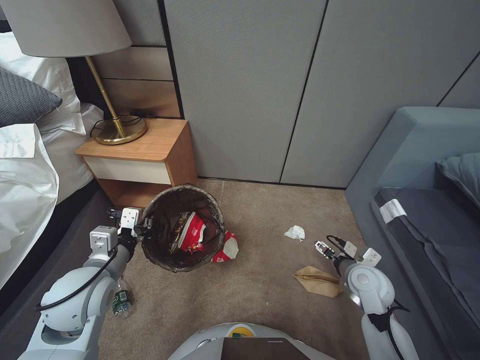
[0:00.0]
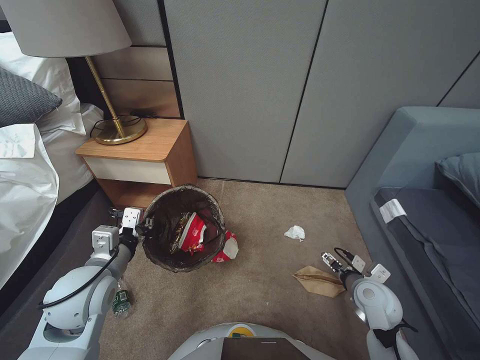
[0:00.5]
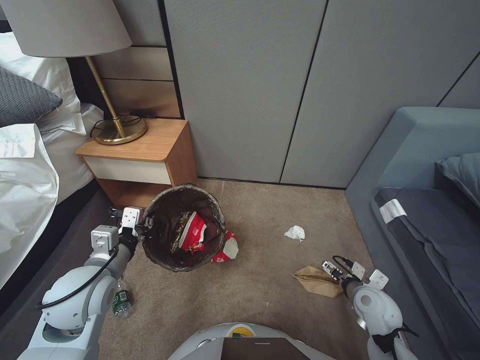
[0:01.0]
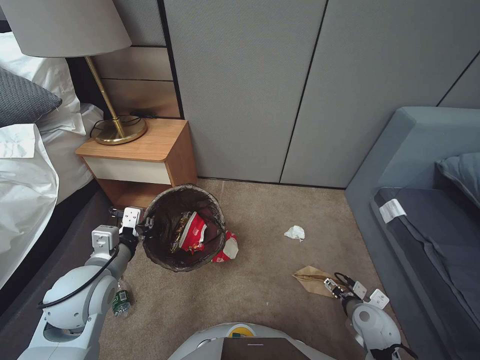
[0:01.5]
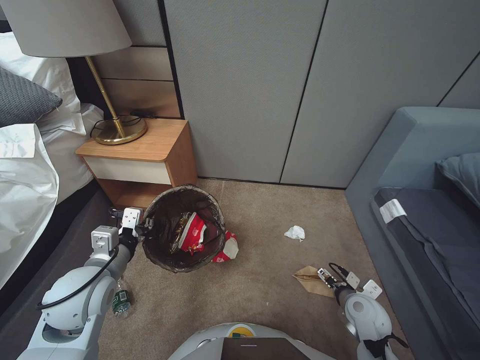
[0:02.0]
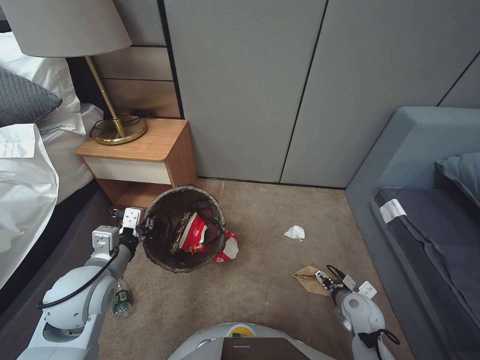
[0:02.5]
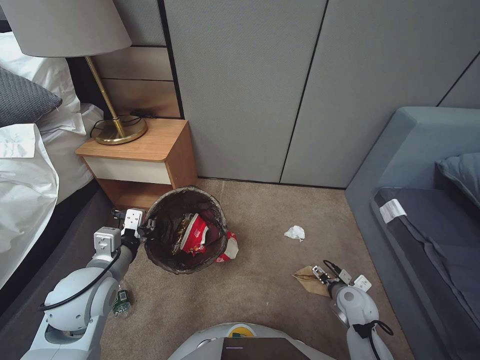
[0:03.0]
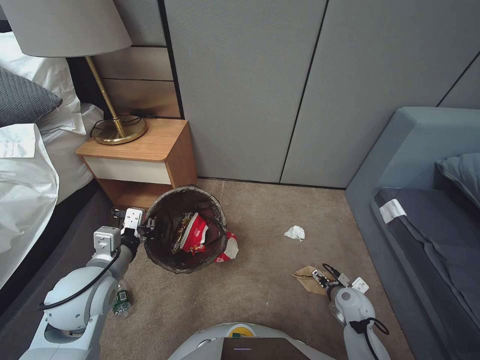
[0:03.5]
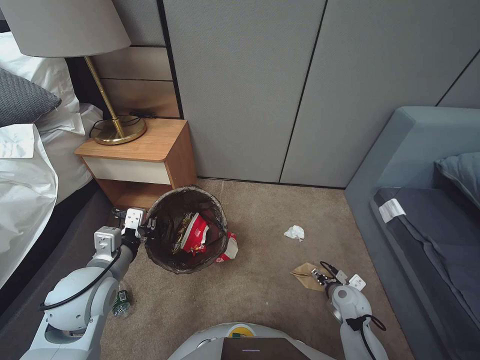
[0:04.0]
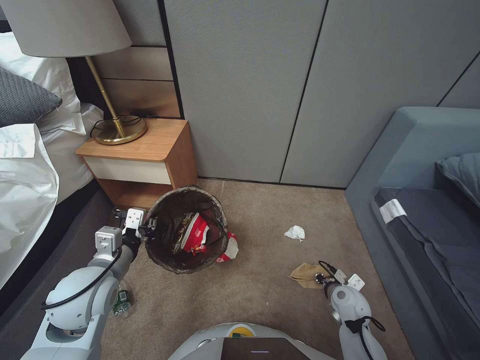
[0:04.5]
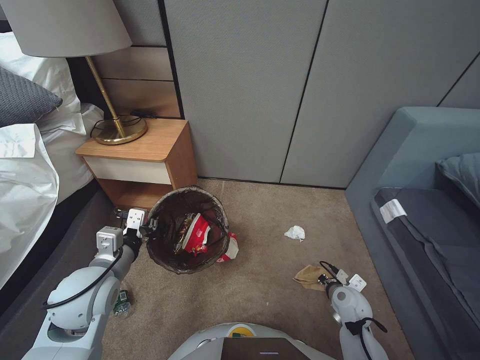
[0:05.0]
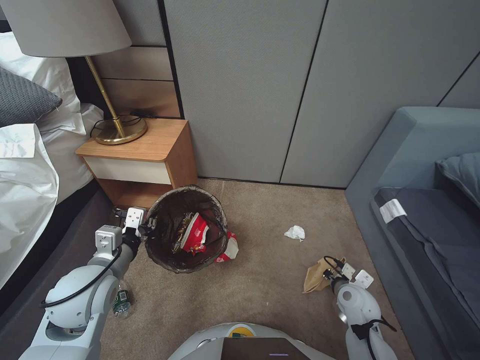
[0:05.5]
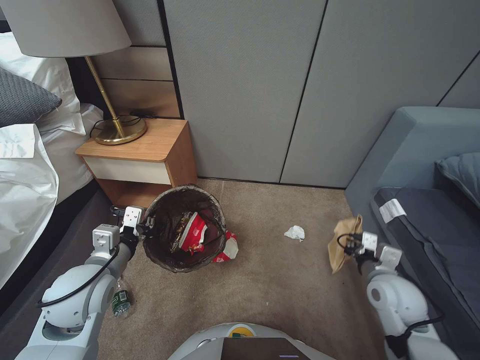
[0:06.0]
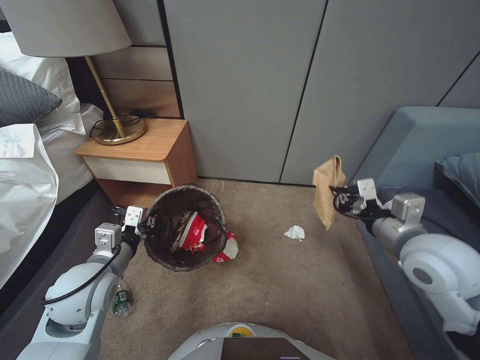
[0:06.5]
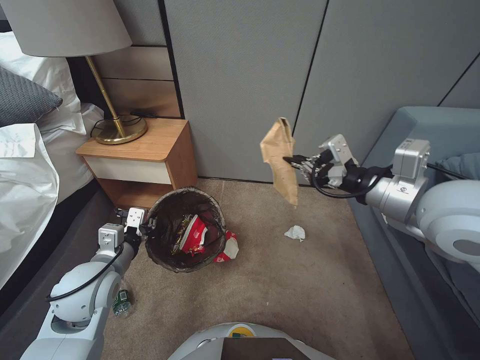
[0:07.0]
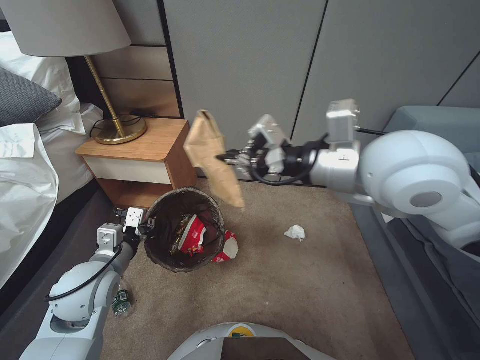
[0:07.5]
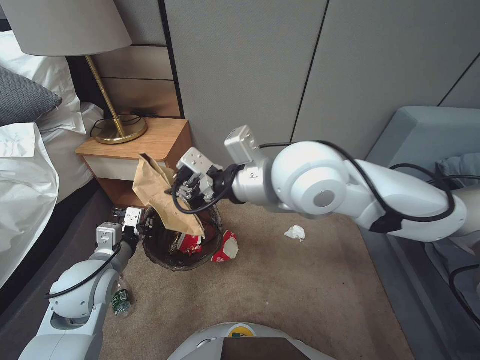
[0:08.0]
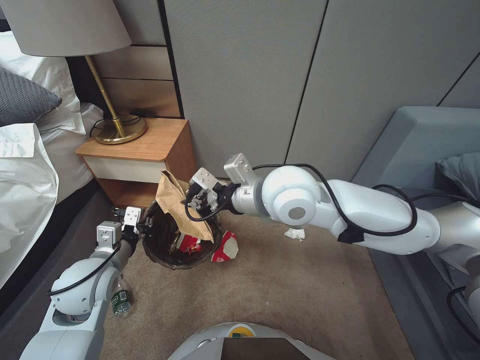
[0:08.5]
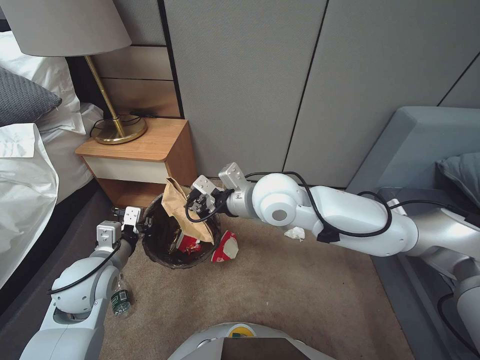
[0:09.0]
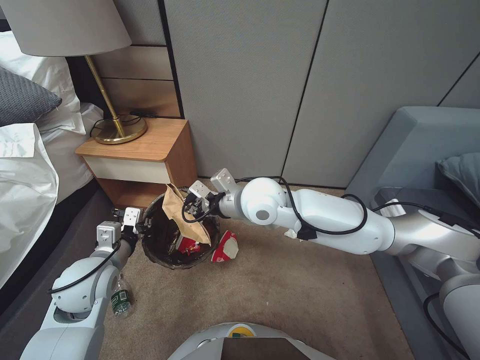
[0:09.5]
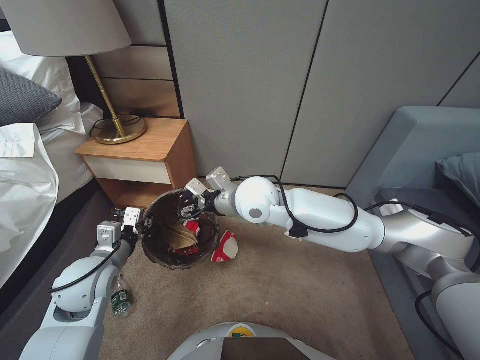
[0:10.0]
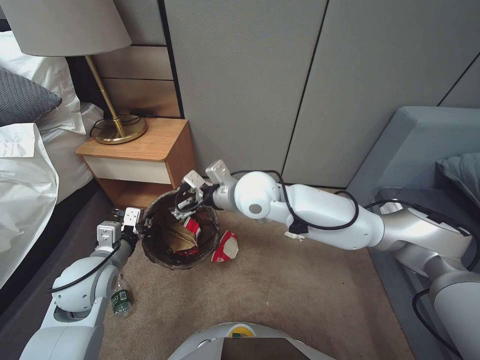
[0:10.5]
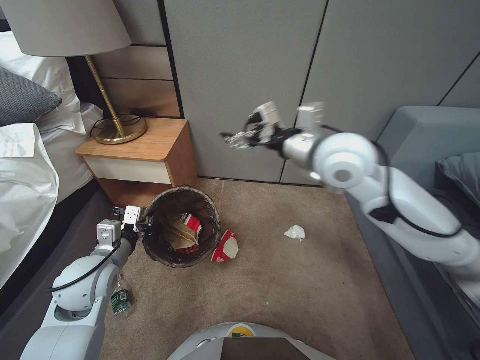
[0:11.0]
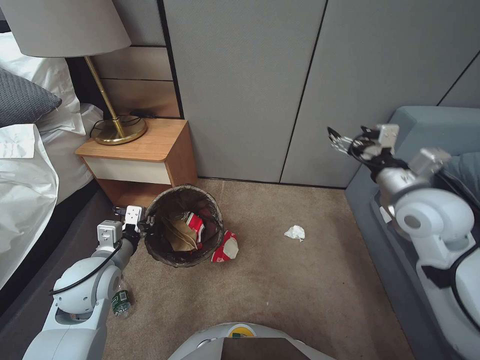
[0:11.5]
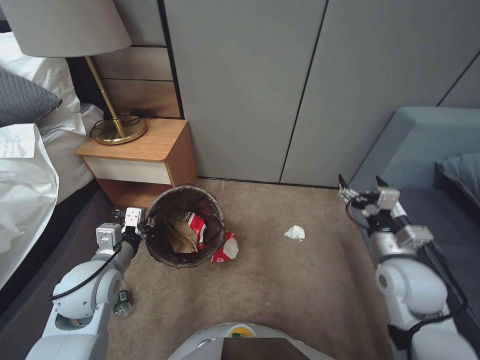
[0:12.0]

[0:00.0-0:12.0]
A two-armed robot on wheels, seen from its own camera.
Task of the whole recording: Pick up the trash bin, then pick up the garbage from the floor and place it into the trash bin.
0:00.0 to 0:02.0: The right gripper shifts approximately 10 cm downward and backward.
0:02.0 to 0:04.0: The right gripper moves downward, approximately 5 cm.
0:04.0 to 0:06.0: The right gripper is displaced upward by approximately 15 cm, and closes its fingers.
0:06.0 to 0:08.0: The right gripper travels upward and to the left by some 40 cm.
0:08.0 to 0:10.0: The right gripper is displaced downward and forward by some 15 cm, and opens its fingers.
0:10.0 to 0:12.0: The right gripper heads to the right and backward, covering roughly 35 cm, and opens up.

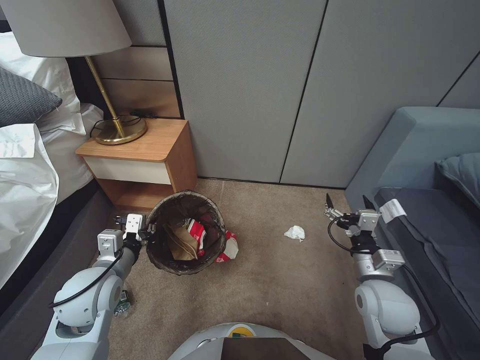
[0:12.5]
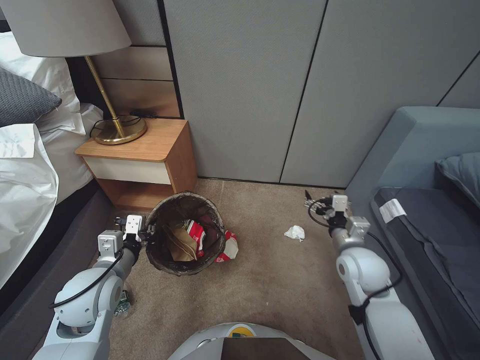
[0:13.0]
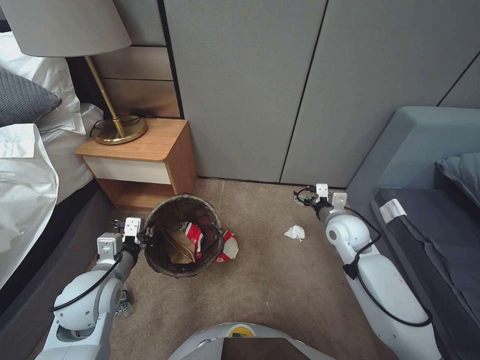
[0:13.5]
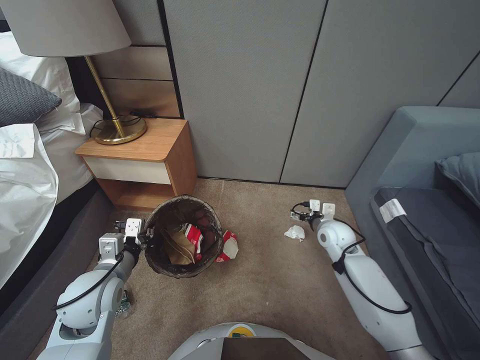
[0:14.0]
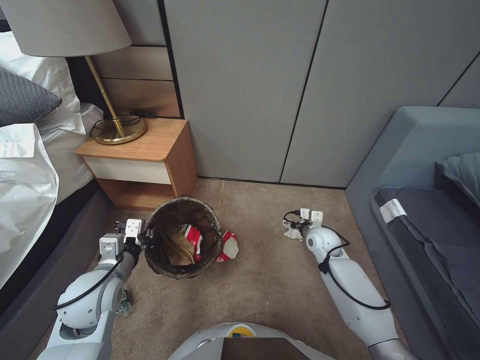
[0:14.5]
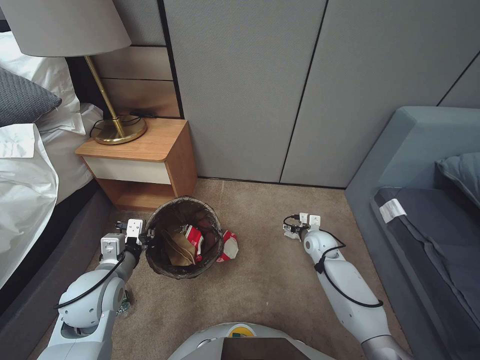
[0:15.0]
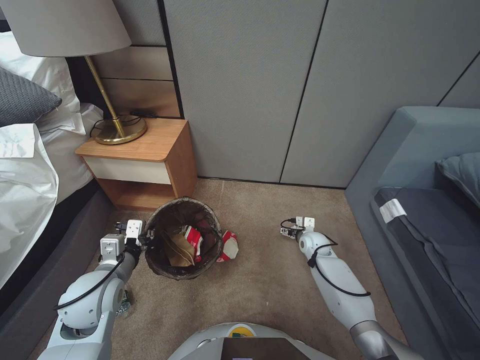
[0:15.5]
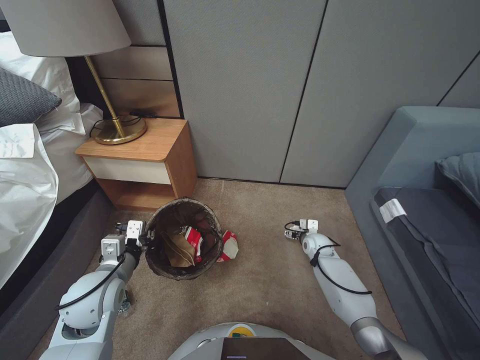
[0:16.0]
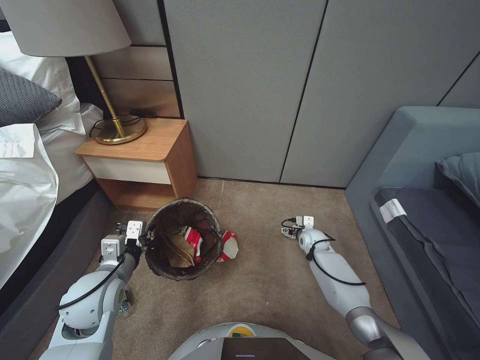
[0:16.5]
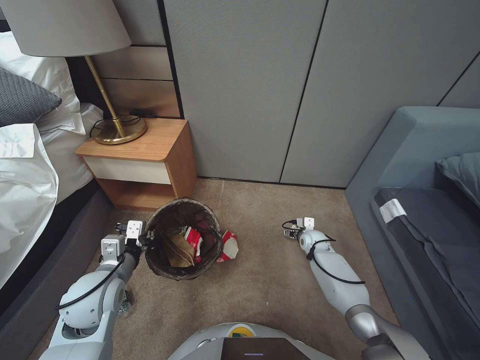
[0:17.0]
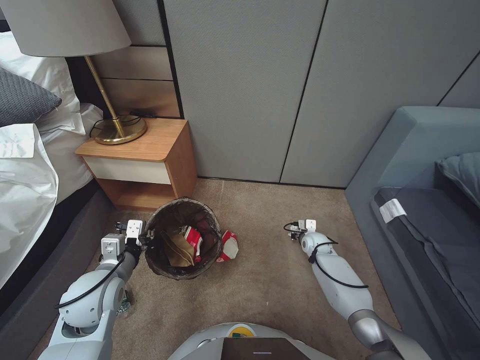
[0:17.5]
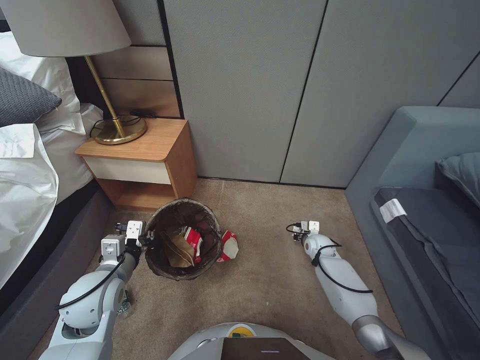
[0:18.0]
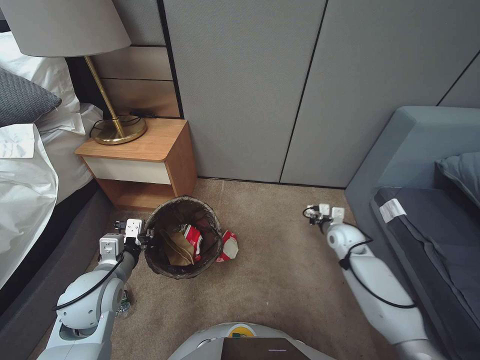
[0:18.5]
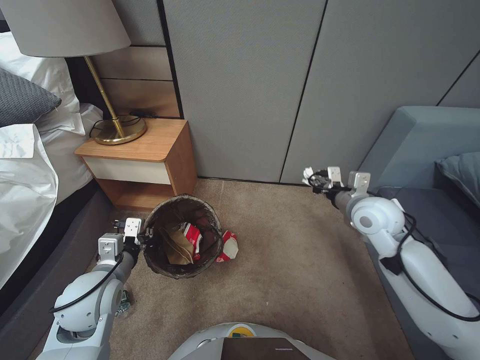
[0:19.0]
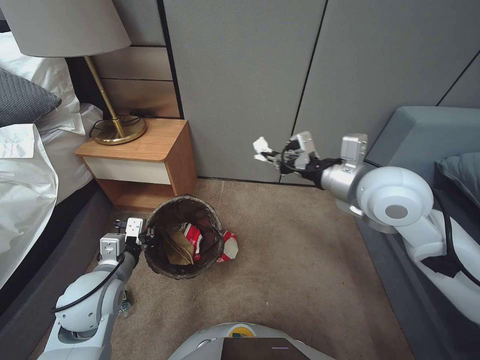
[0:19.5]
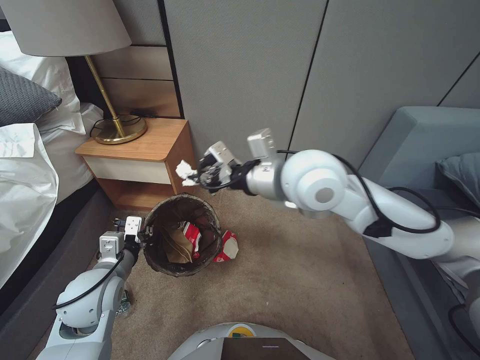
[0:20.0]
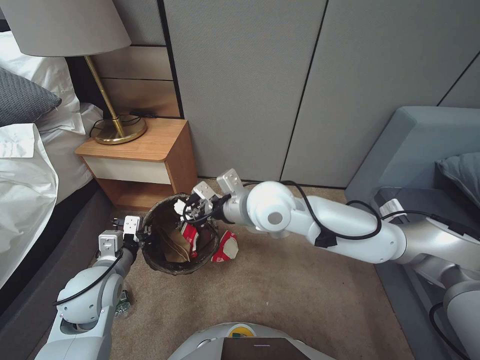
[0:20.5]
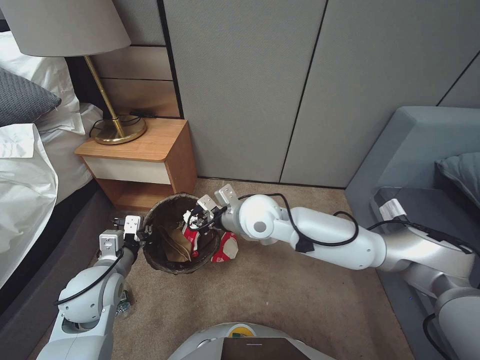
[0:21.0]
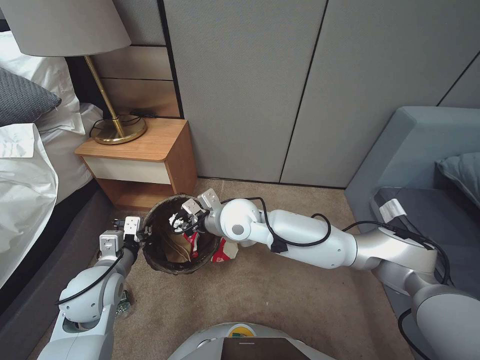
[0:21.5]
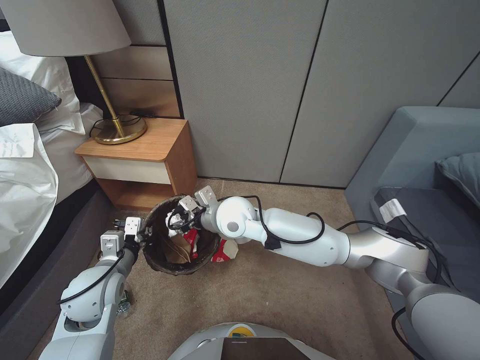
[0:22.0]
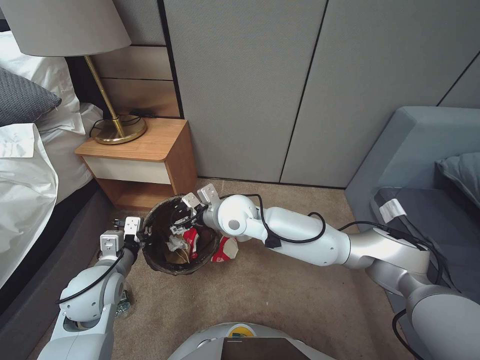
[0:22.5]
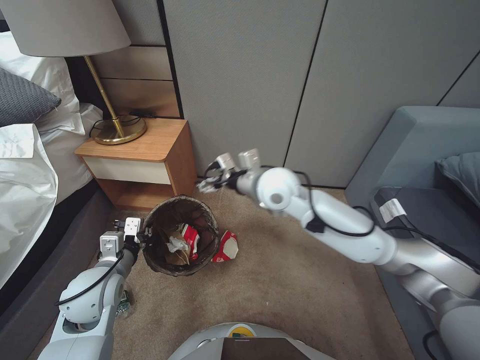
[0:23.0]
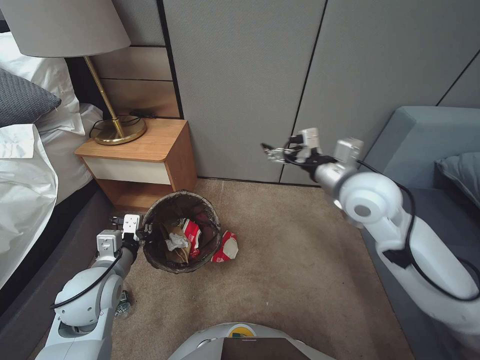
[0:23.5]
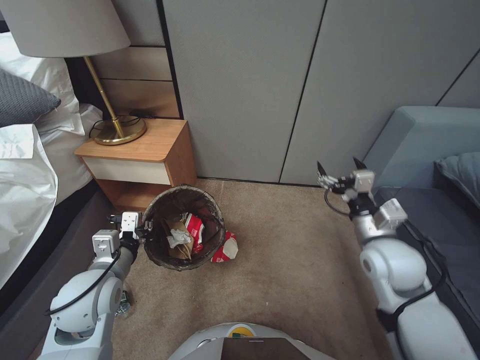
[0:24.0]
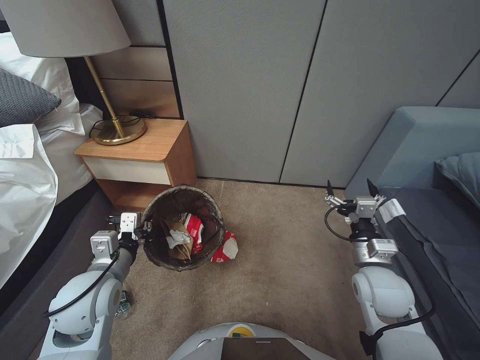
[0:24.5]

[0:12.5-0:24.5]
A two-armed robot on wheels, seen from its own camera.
Task of the whole recording: Pick up the trash bin, then pick up the garbage from the floor and place it into the trash bin.
0:12.5 to 0:14.5: The right gripper moves forward and downward, roughly 20 cm.
0:14.5 to 0:16.5: The right gripper shifts some 10 cm downward.
0:16.5 to 0:18.5: The right gripper heads upward, covering some 10 cm, and closes its fingers.
0:18.5 to 0:20.5: The right gripper moves upward and to the left, about 40 cm.
0:20.5 to 0:22.5: The right gripper is displaced downward and to the left by approximately 10 cm, and opens its fingers.
0:22.5 to 0:24.5: The right gripper moves to the right and backward, approximately 35 cm.

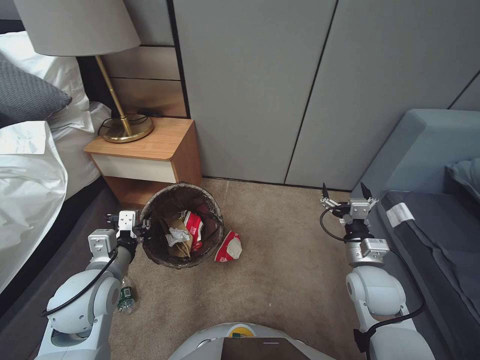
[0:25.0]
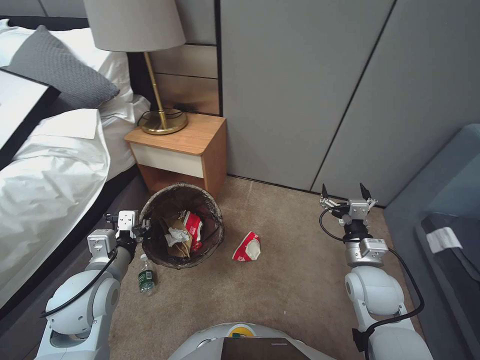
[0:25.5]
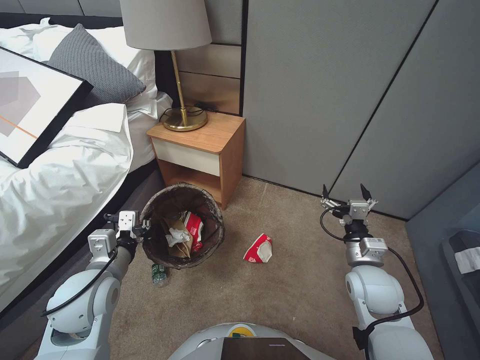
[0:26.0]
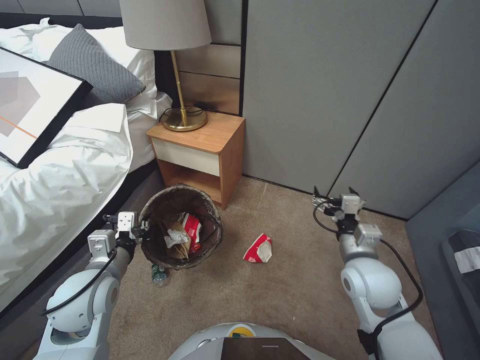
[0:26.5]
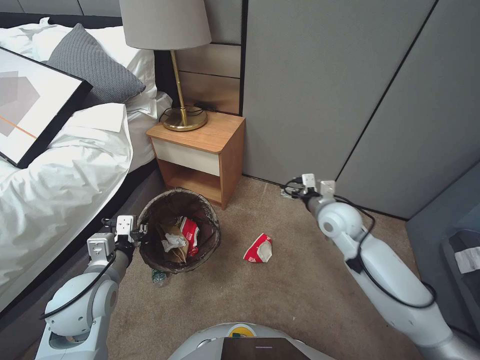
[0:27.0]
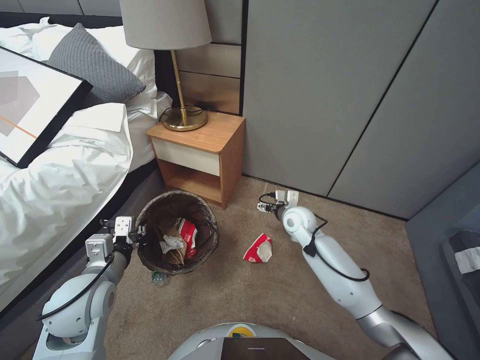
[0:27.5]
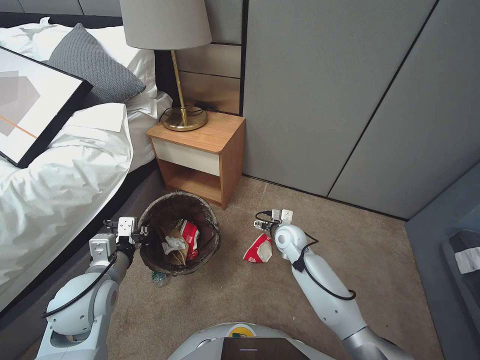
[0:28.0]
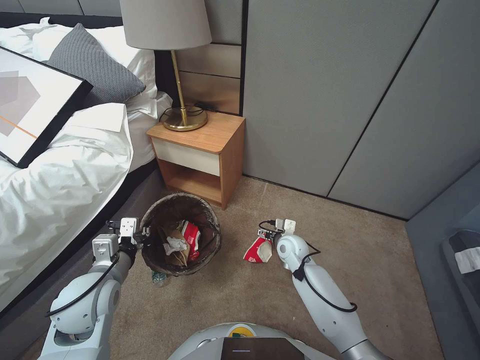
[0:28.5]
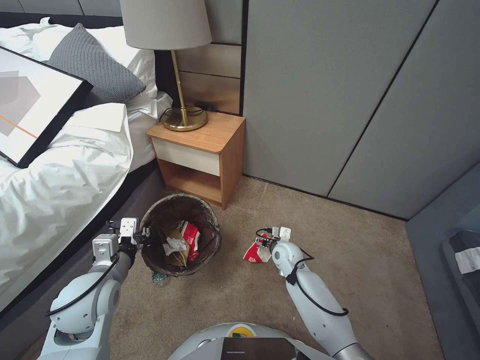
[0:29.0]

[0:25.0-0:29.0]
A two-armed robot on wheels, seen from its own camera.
Task of the whole recording: Pick up the trash bin, then pick up the garbage from the floor and place it into the trash bin.
0:25.0 to 0:27.0: The right gripper heads forward and upward, covering some 15 cm.
0:27.0 to 0:29.0: The right gripper travels downward and to the left by roughly 25 cm.
